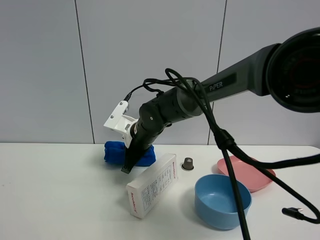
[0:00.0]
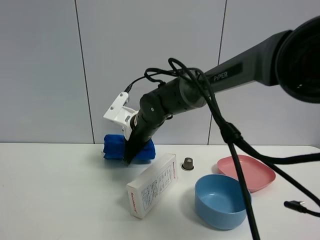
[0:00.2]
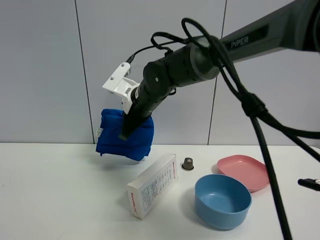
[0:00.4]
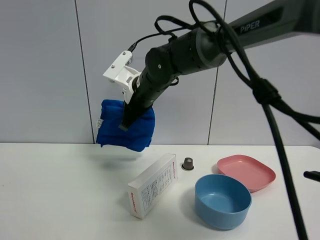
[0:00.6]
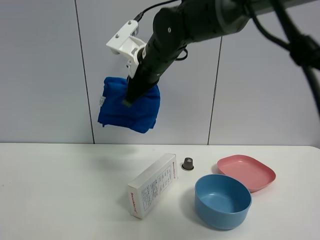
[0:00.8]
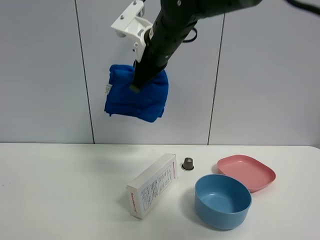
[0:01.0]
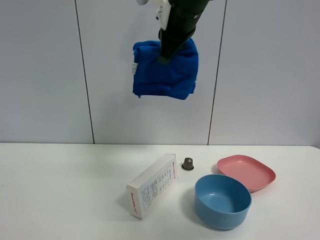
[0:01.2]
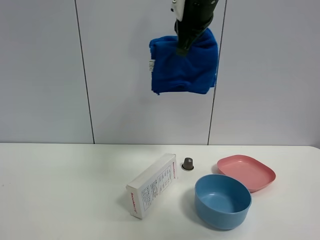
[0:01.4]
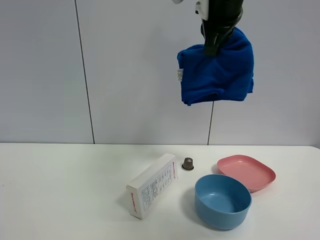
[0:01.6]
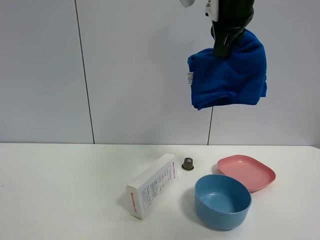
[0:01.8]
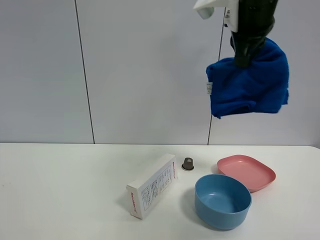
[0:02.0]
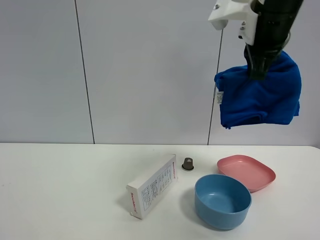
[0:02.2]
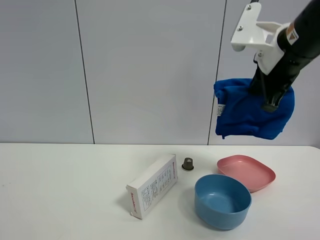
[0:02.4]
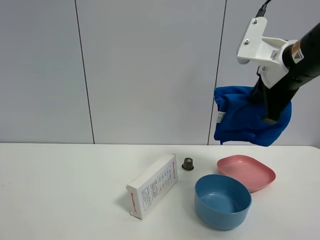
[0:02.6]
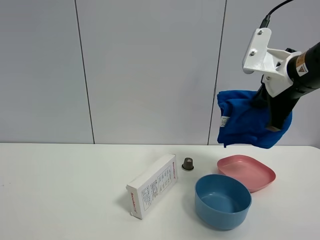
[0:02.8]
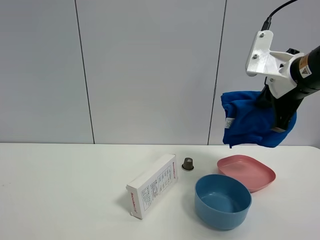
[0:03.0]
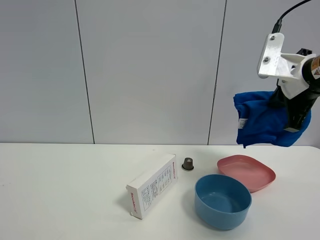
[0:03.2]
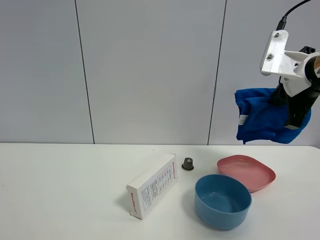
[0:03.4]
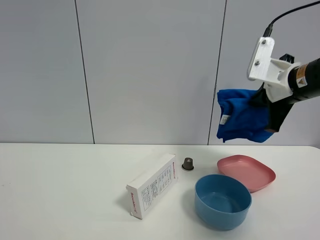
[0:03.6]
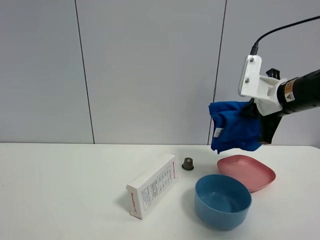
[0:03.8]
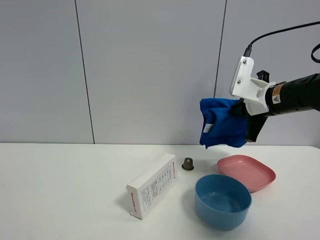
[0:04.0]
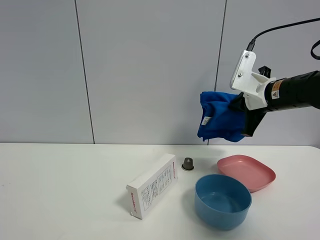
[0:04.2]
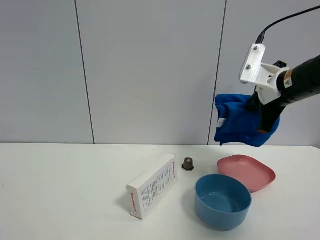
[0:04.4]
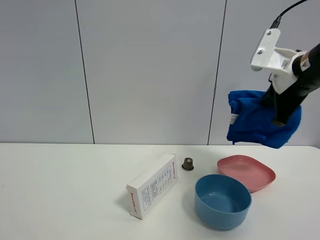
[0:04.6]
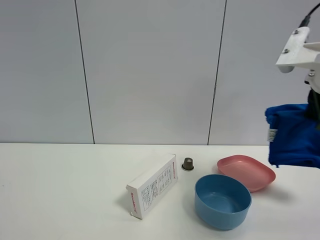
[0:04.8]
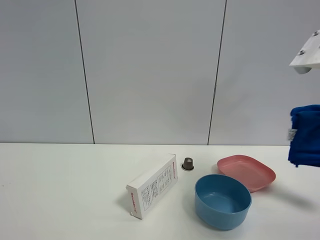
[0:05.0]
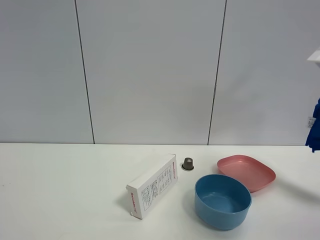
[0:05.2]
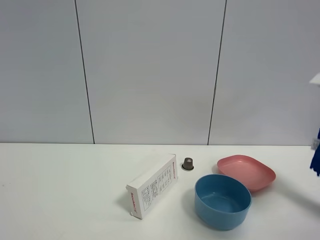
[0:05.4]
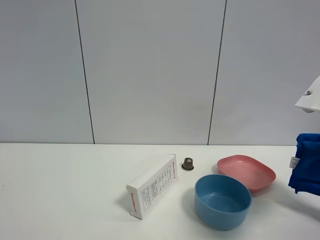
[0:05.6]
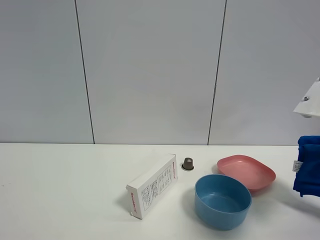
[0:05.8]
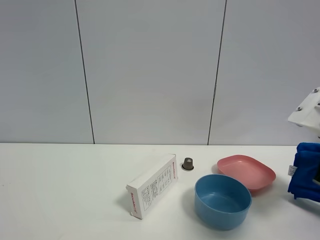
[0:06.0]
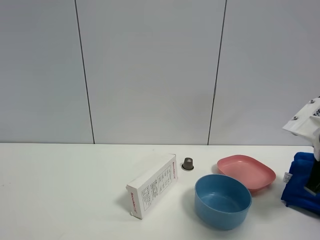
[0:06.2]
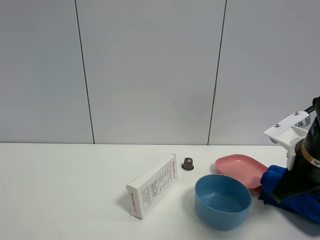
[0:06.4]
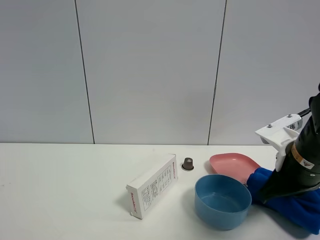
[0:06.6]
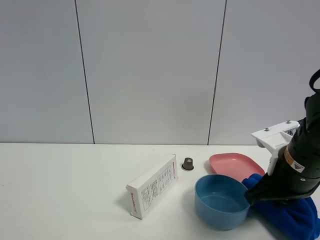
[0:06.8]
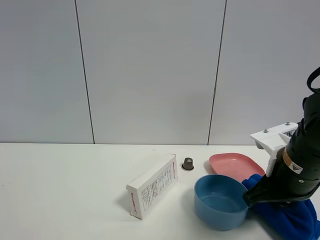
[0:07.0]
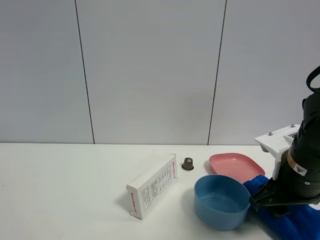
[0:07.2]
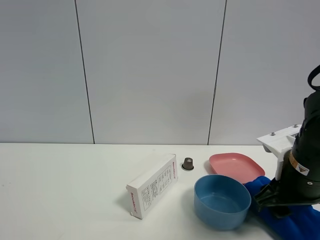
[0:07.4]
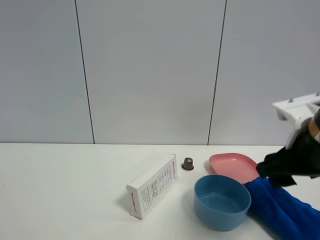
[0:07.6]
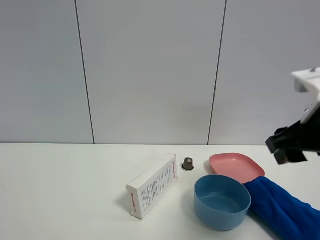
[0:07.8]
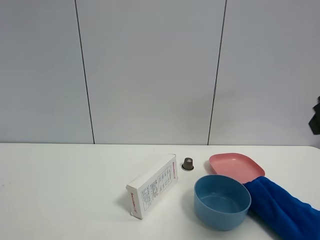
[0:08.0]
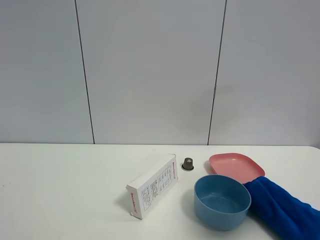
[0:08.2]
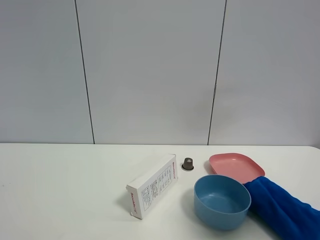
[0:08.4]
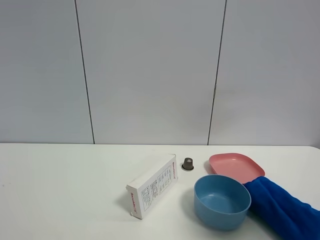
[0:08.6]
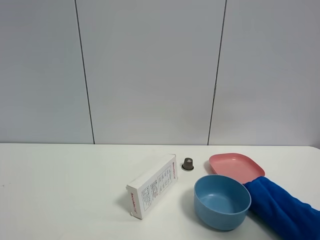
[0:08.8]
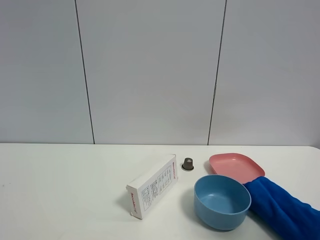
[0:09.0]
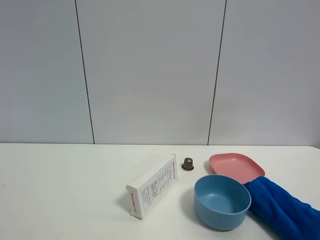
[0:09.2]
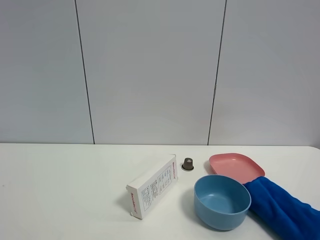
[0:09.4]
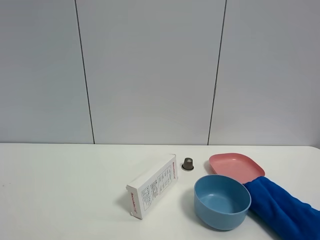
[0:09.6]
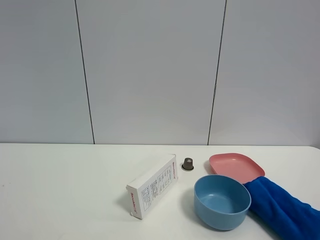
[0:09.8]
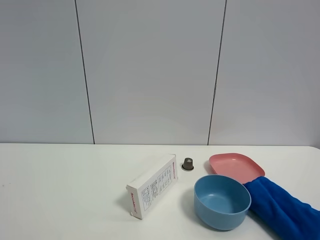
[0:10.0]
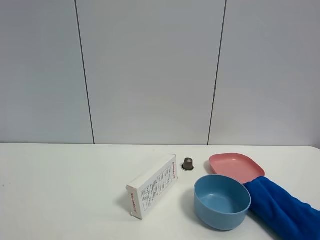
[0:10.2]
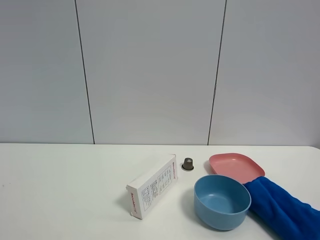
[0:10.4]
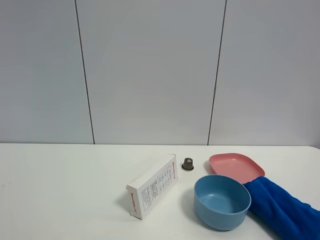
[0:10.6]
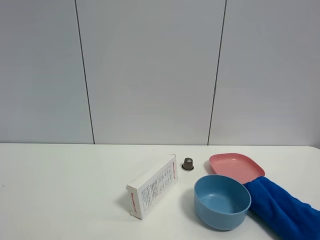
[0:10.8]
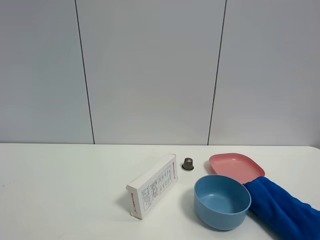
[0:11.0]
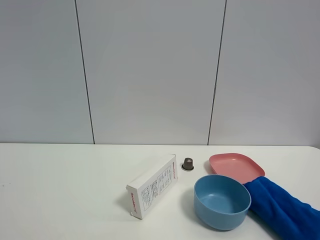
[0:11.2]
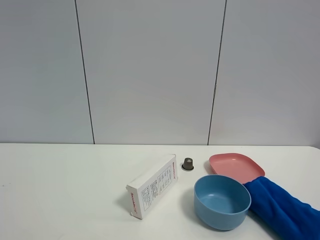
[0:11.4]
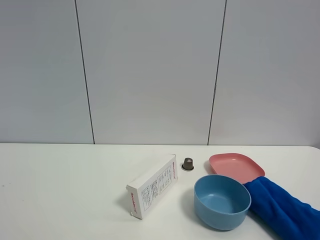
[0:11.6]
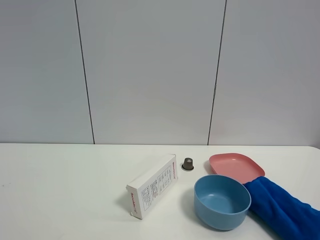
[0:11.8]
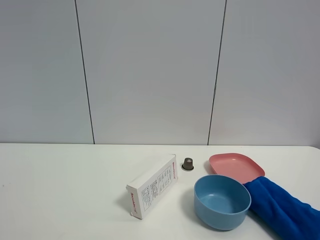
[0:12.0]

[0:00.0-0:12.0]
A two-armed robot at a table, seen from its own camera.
Task of the whole recording: the gripper move the object.
Step, 0:00.0 to 0:07.4: Place the blue towel on the table with the right gripper.
0:00.0 to 0:01.6: The right gripper moves upward and to the right, roughly 30 cm.
0:01.6 to 0:03.0: The right gripper shifts roughly 20 cm to the right and downward.
0:04.4 to 0:06.0: The right gripper goes some 10 cm backward and downward.
0:06.0 to 0:07.6: The right gripper shifts roughly 5 cm to the left, and opens up.
0:07.6 to 0:09.0: The right gripper is displaced backward, upward and to the right by roughly 25 cm.
0:09.0 to 0:10.4: The right gripper moves downward and backward, approximately 10 cm.

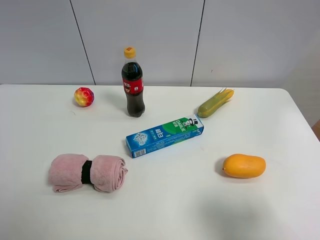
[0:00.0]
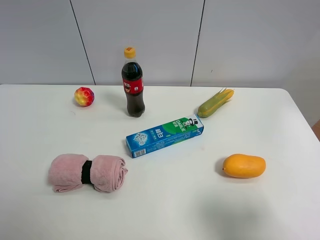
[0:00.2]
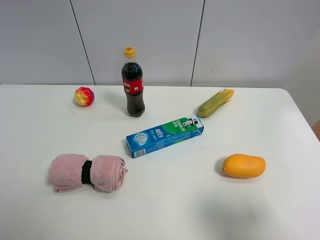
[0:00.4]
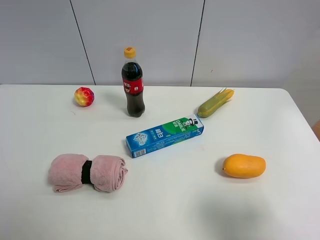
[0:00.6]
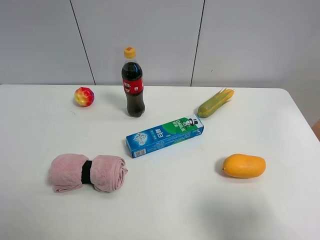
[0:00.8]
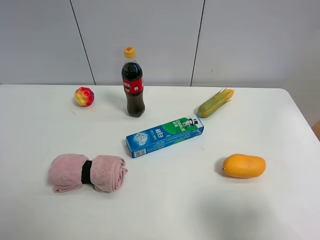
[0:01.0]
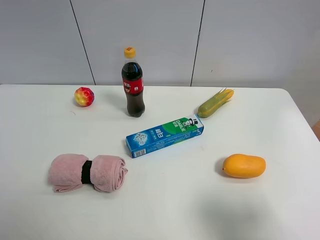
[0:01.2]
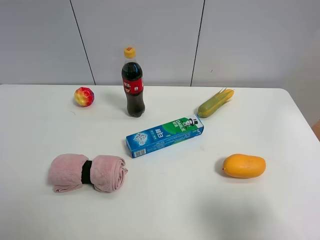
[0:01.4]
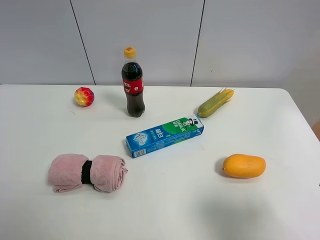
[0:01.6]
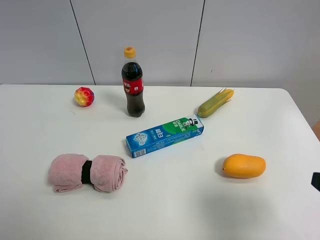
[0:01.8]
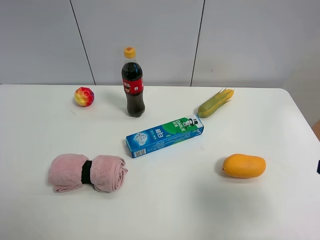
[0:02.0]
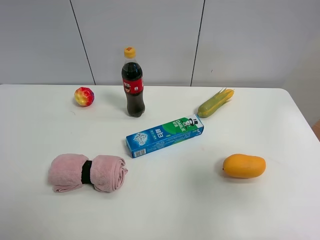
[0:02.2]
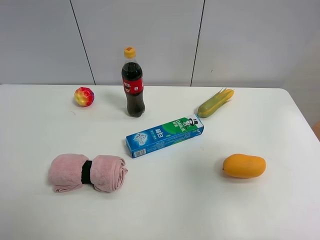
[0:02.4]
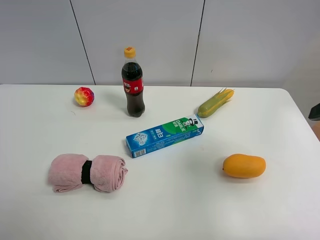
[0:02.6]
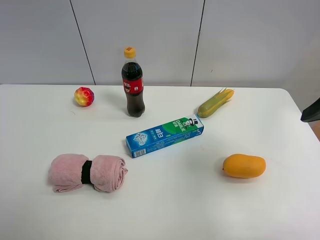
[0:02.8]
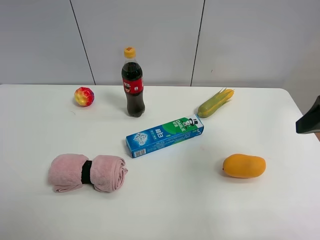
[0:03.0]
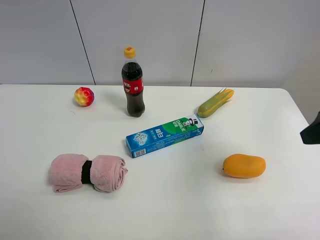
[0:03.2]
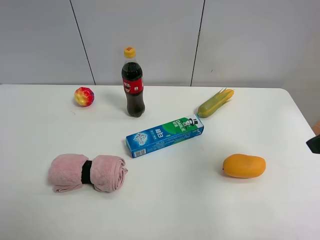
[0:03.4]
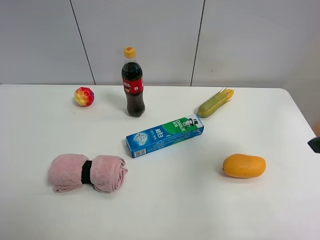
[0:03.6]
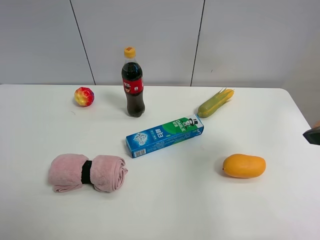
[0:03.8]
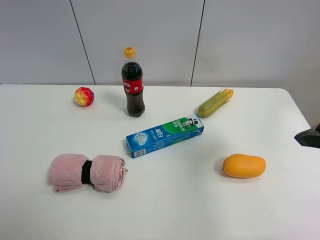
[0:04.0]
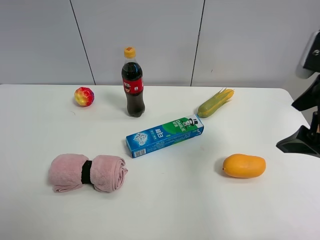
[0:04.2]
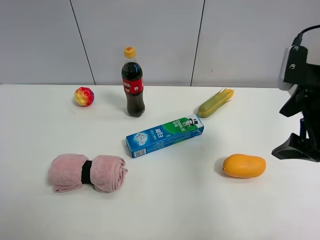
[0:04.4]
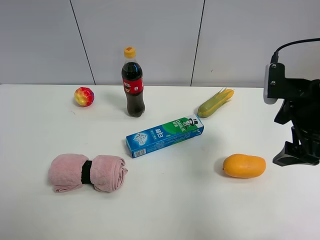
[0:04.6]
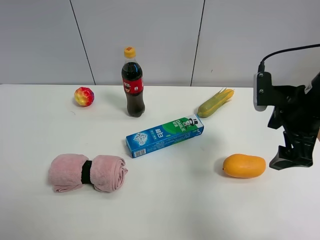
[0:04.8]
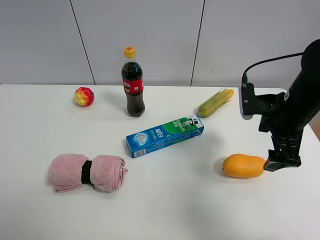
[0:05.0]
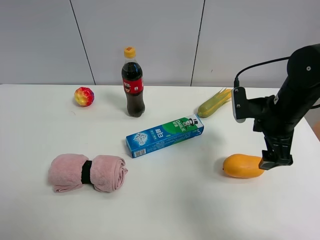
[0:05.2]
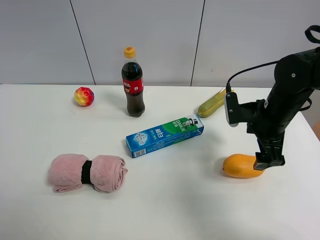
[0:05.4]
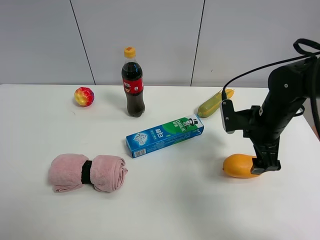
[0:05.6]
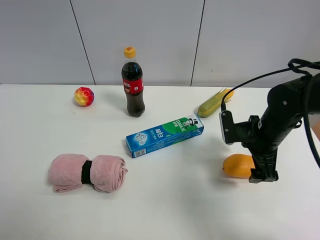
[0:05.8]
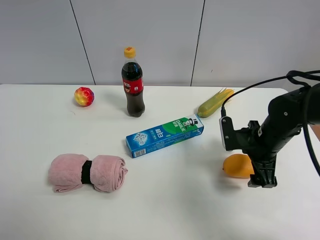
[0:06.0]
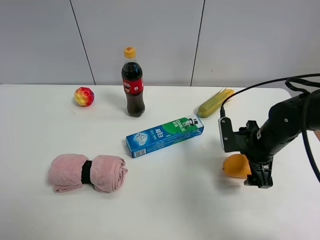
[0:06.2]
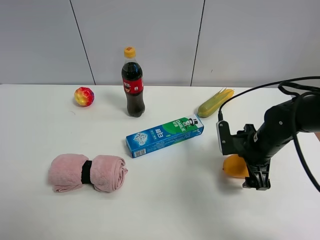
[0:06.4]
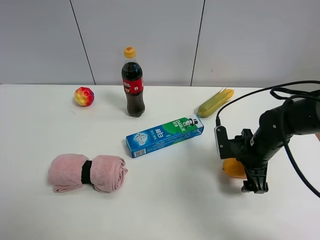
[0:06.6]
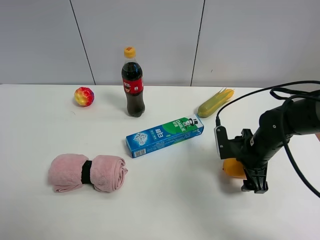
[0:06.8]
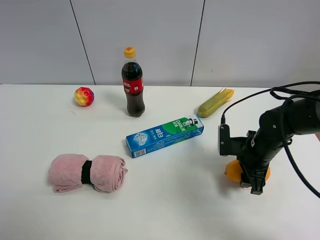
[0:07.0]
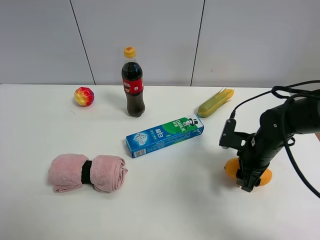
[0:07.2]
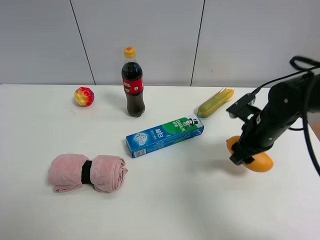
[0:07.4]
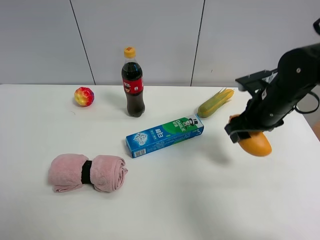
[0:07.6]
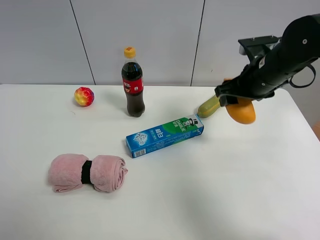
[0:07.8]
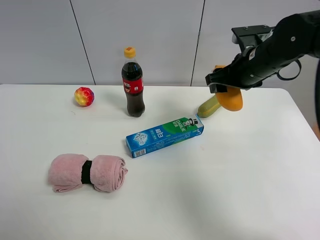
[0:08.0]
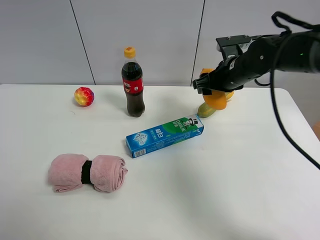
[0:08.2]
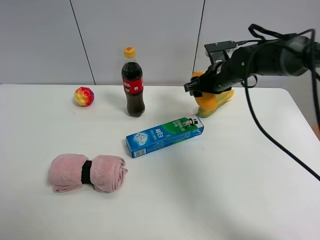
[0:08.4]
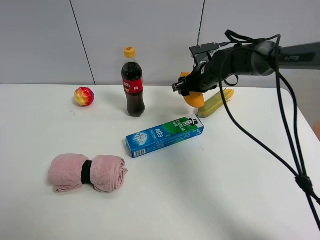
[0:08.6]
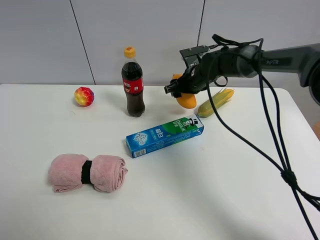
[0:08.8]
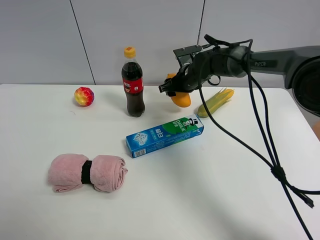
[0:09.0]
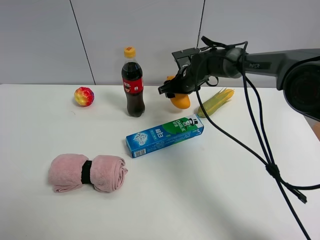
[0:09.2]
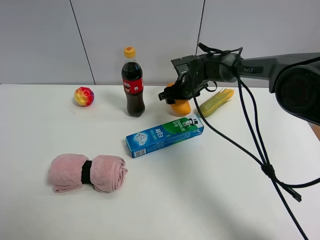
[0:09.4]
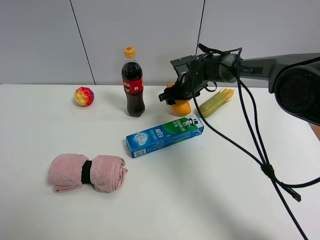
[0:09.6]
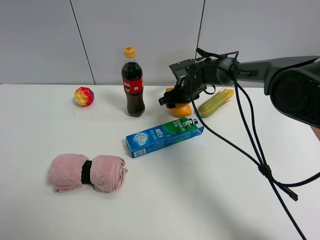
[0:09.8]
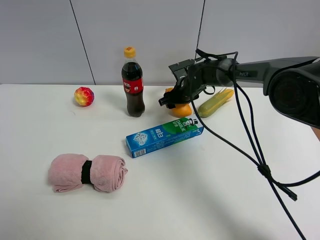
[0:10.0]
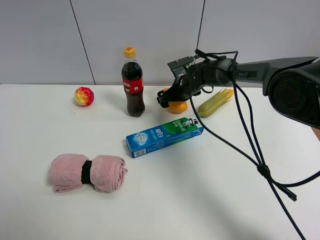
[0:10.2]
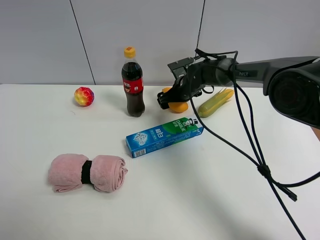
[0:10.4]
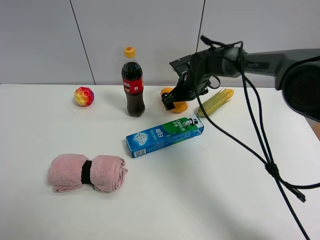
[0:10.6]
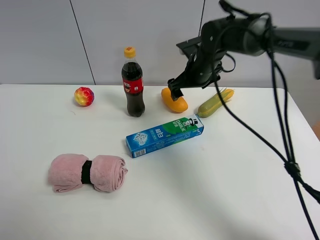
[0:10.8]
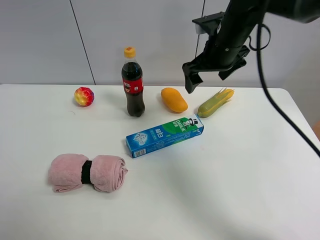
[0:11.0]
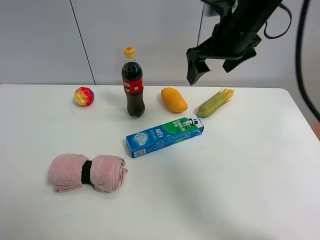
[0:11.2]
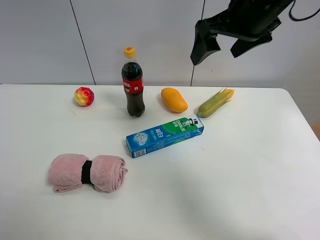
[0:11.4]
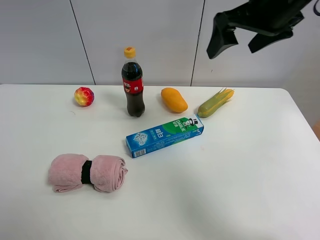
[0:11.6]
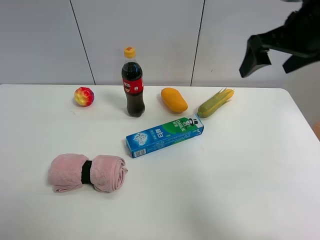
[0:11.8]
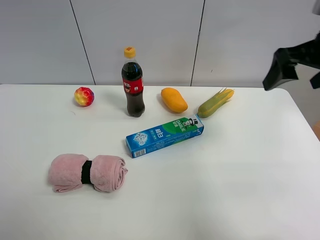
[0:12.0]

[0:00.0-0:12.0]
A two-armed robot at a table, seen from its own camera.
Task of the whole recording: the gripper move the object.
Step, 0:00.0 to 0:06.8: Grasp the mango with the right gripper.
Step, 0:07.0 to 0:10.6: Place the mango on the table with the right gripper.
0:01.6 to 0:03.0: The right gripper shifts about 15 cm forward and upward.
0:03.0 to 0:04.4: The right gripper heads forward, covering roughly 5 cm.
0:04.4 to 0:06.0: The right gripper heads downward, covering roughly 15 cm.
0:06.0 to 0:07.6: The right gripper travels upward by about 10 cm, and closes its fingers.
0:07.6 to 0:09.0: The right gripper travels forward, to the left and downward by some 20 cm.
0:09.0 to 0:10.4: The right gripper opens.
0:10.4 to 0:12.0: The right gripper goes some 40 cm upward, backward and to the right.
